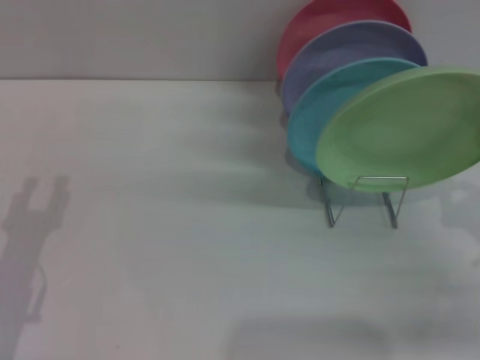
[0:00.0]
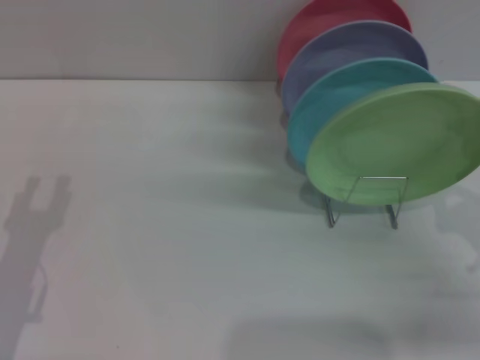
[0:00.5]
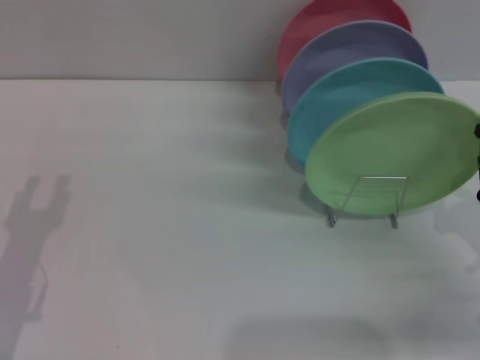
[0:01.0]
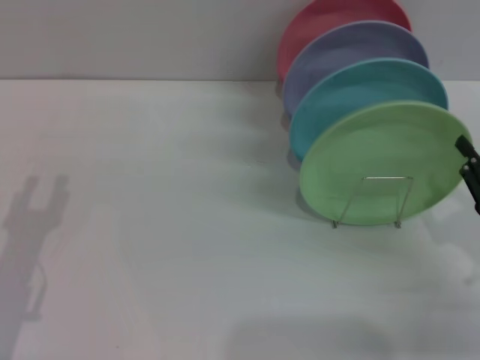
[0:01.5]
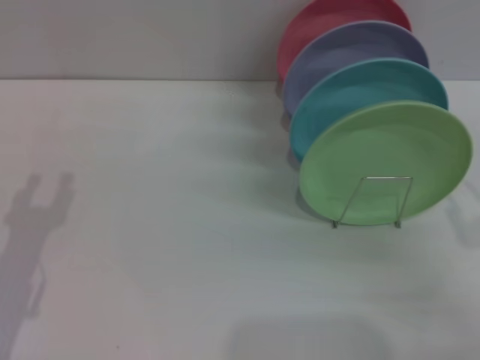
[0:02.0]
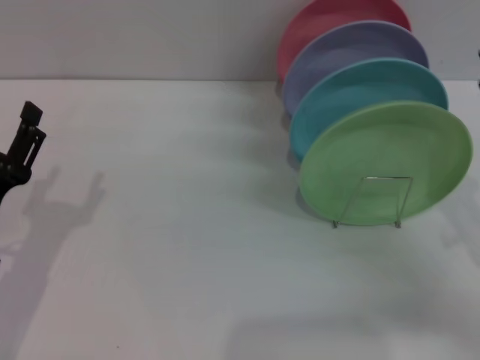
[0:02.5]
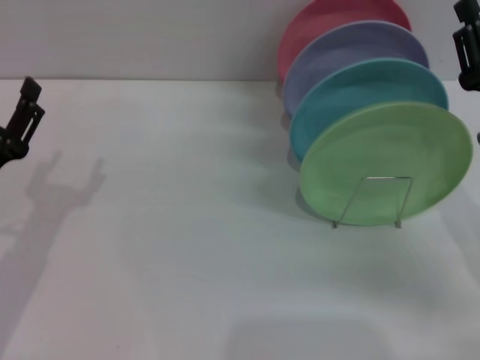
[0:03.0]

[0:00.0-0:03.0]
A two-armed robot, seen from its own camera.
Task of the whole recording: Grip the plate with one hand, pass it to the other, then set it on the shelf.
0:00.0 to 0:01.5: The grippers move only a little.
0:01.5 to 0:03.0: The right gripper heads forward and to the left, covering approximately 10 cm.

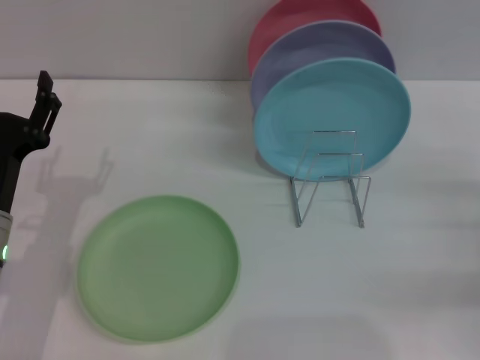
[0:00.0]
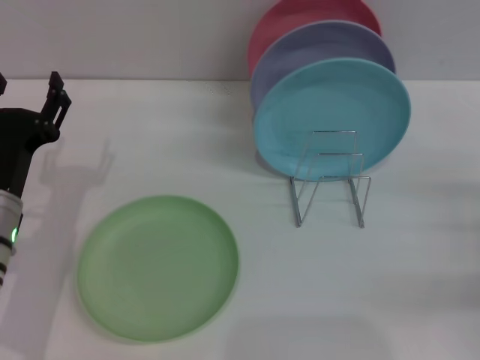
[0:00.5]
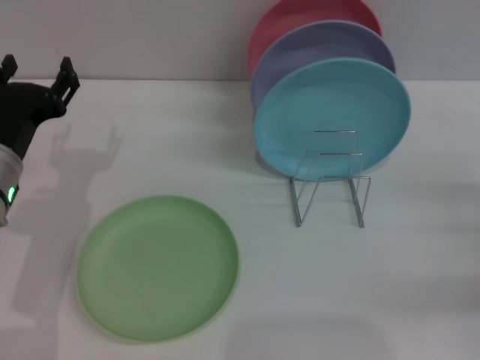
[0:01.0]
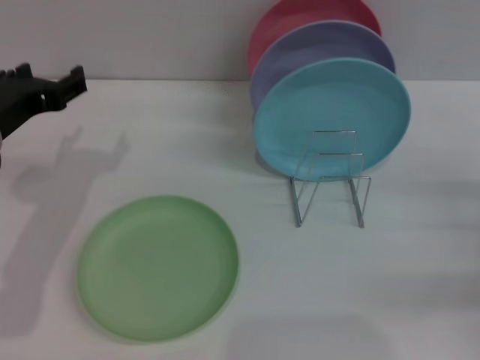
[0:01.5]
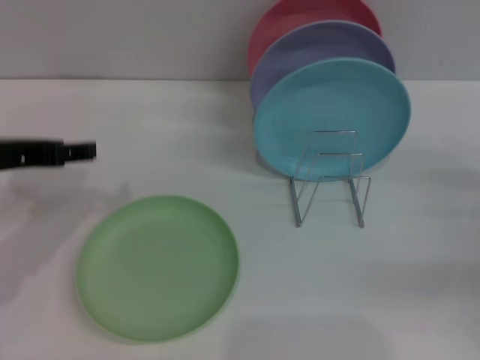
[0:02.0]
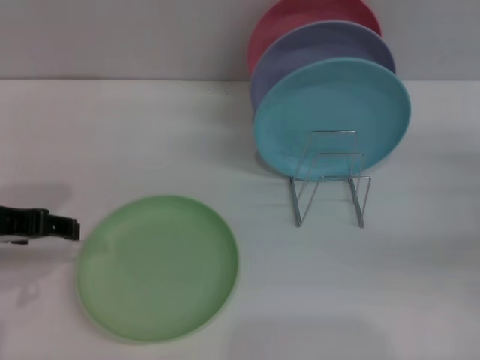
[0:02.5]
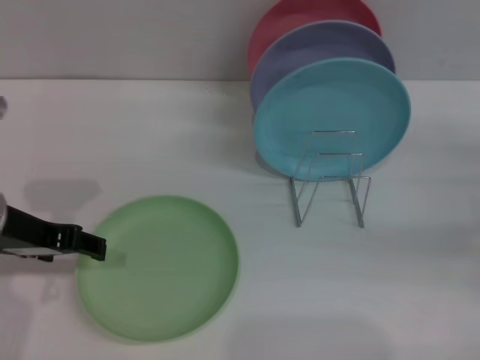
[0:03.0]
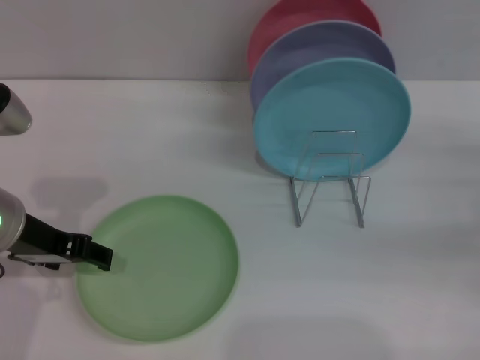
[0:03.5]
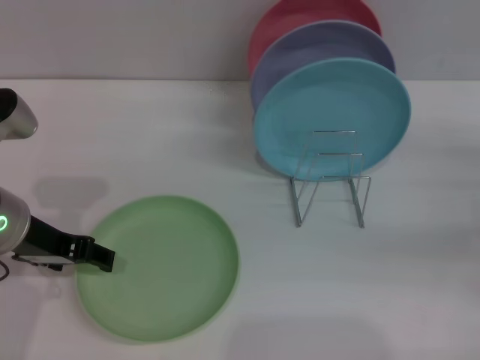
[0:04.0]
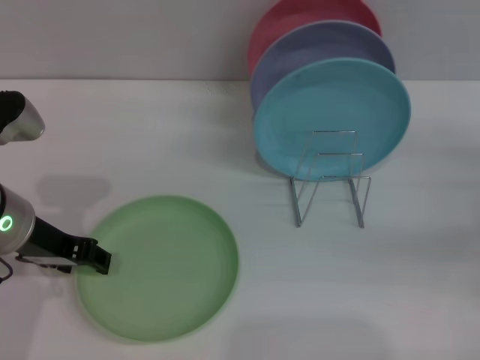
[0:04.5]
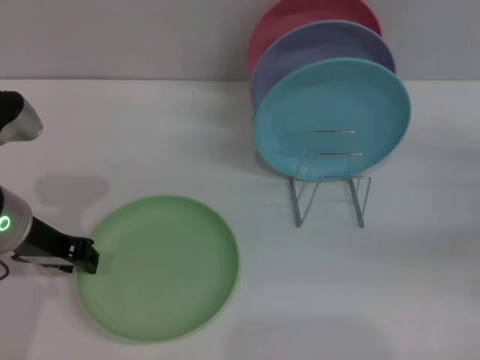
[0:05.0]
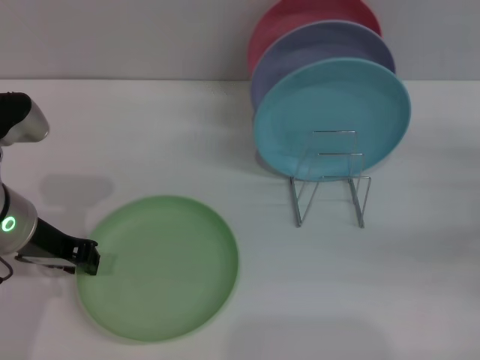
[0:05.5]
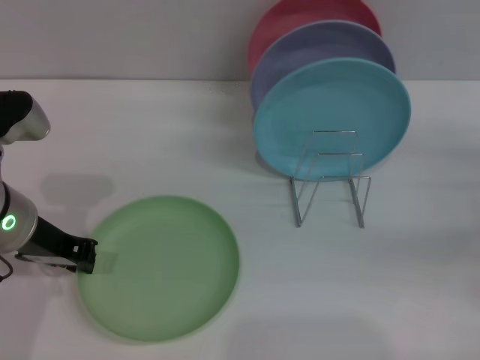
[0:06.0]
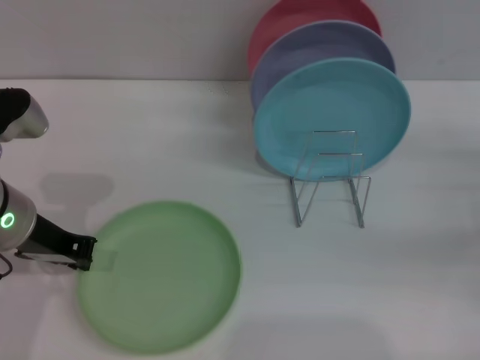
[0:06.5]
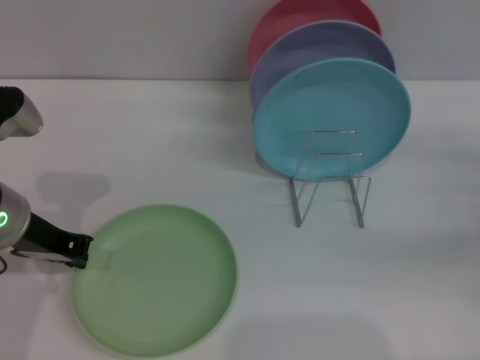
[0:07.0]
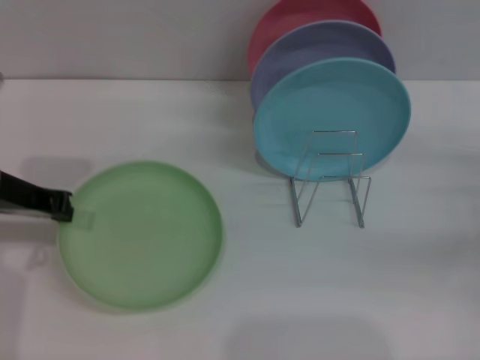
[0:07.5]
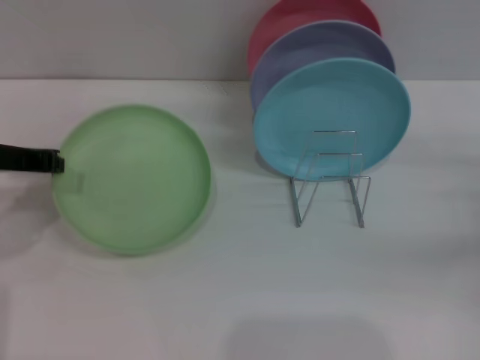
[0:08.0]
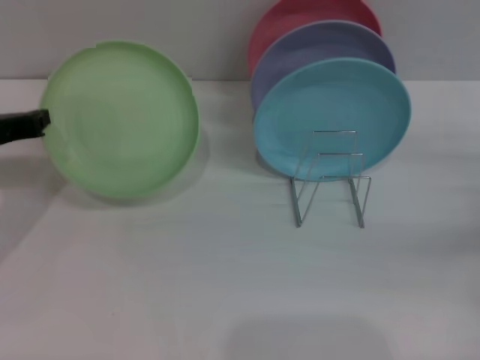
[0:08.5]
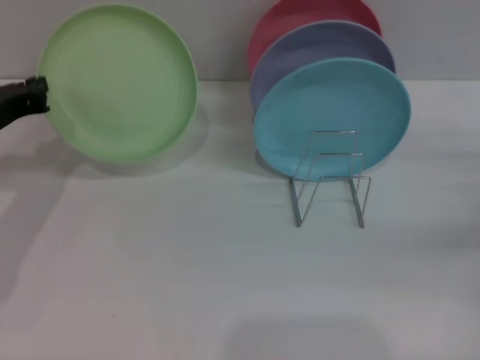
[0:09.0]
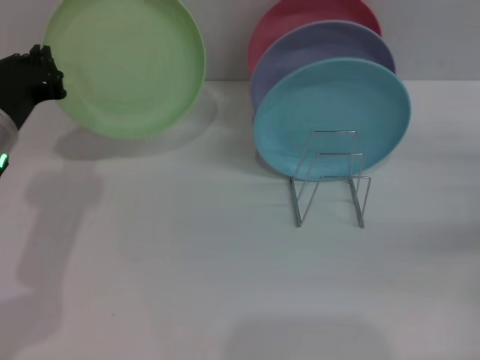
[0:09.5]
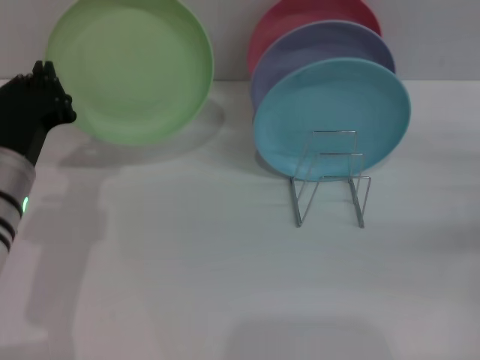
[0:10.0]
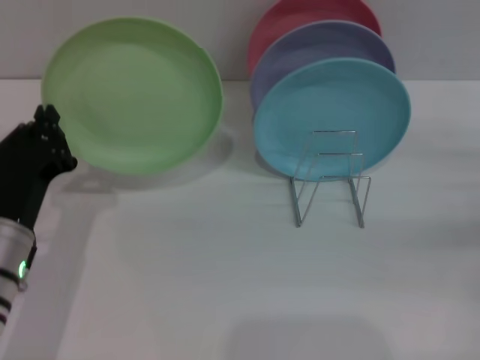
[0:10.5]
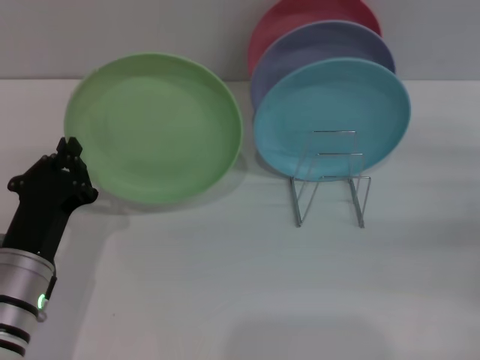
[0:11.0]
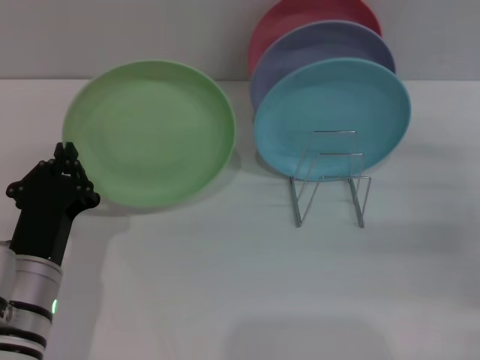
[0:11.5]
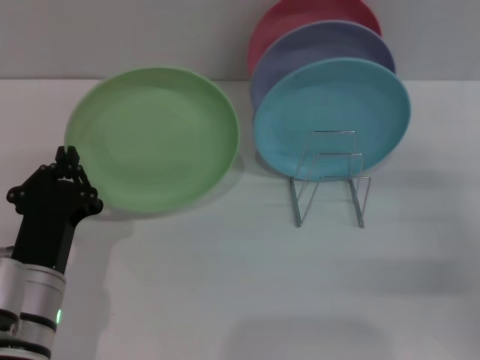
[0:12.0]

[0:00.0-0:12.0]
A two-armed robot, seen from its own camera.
Task of the whole recording: Grip the plate with one hand, pass it to the other, then set it on the shelf.
Step, 0:00.0 to 0:08.5: Pick up the plate with the left gripper.
0:00.0 to 0:02.0: The left gripper is displaced upward by approximately 15 cm.
0:02.0 to 0:04.0: The left gripper shifts by some 5 cm.
0:04.0 to 0:06.0: The left gripper closes.
0:06.0 to 0:08.0: The left gripper is displaced to the left by roughly 5 cm.
0:08.0 to 0:10.0: The left gripper heads downward, to the right and backward, covering approximately 10 cm.
0:10.0 to 0:12.0: The right gripper ends up some 5 cm from where it was, while the left gripper goes approximately 10 cm backward and downward.

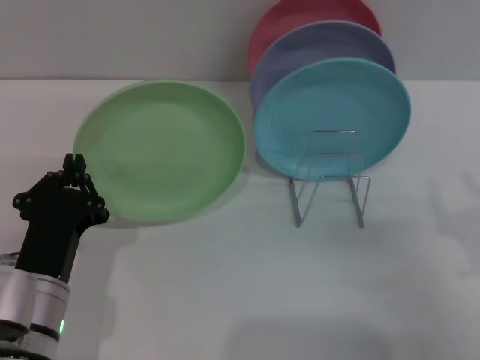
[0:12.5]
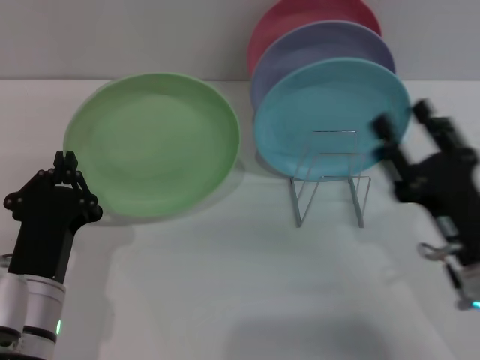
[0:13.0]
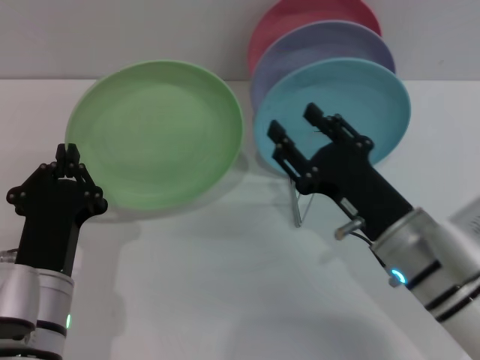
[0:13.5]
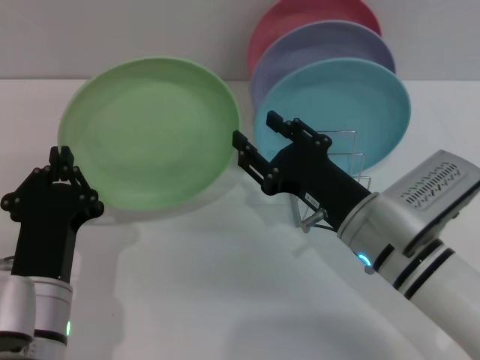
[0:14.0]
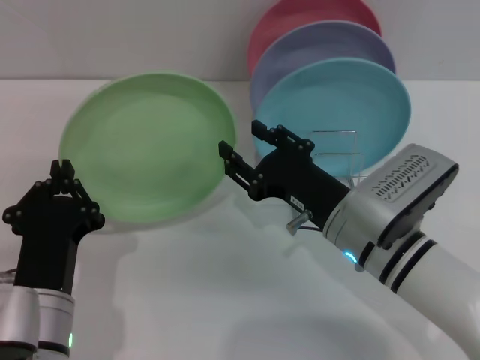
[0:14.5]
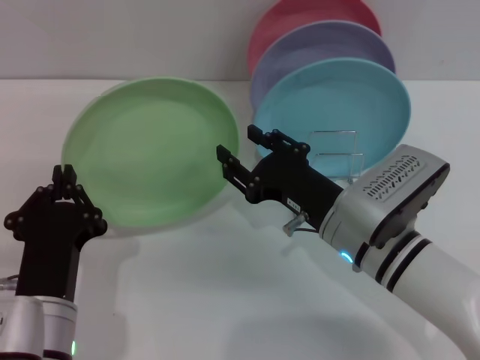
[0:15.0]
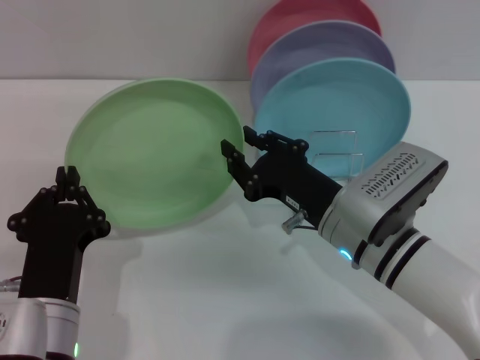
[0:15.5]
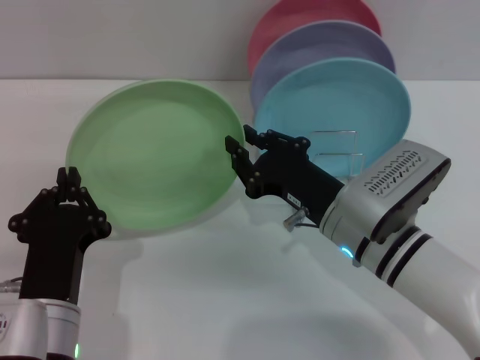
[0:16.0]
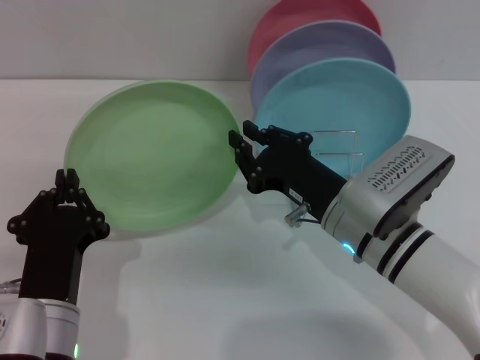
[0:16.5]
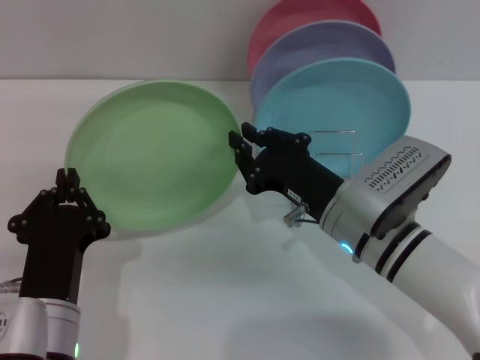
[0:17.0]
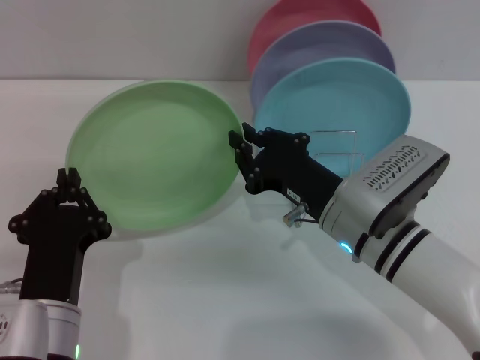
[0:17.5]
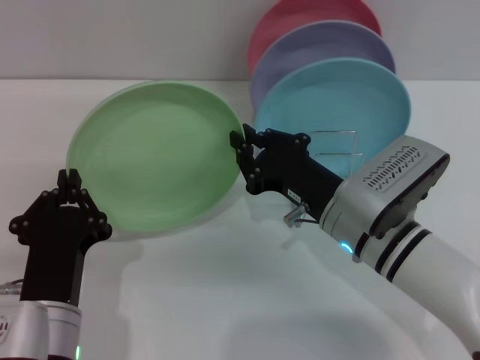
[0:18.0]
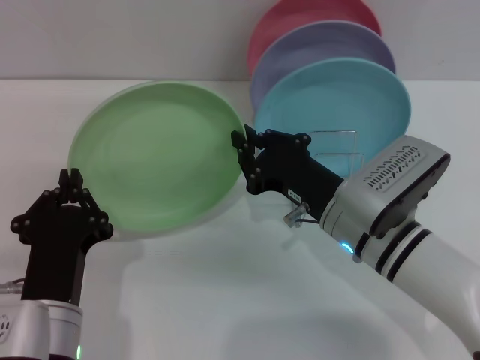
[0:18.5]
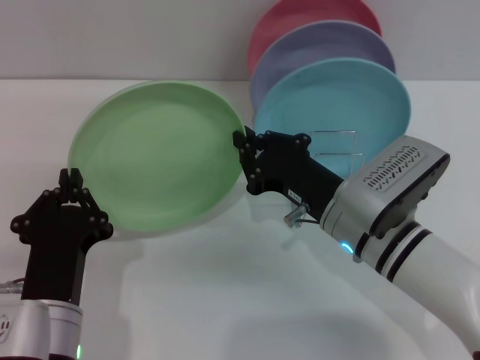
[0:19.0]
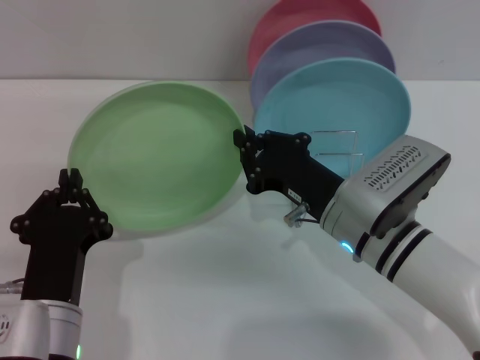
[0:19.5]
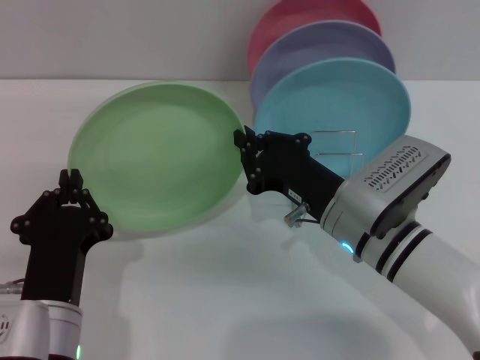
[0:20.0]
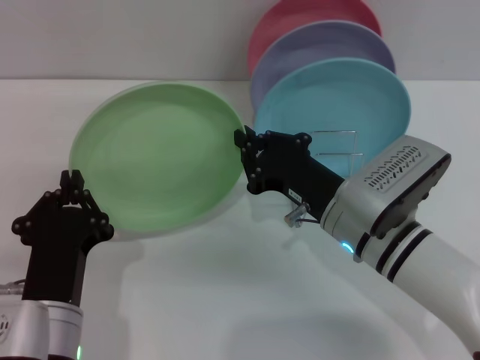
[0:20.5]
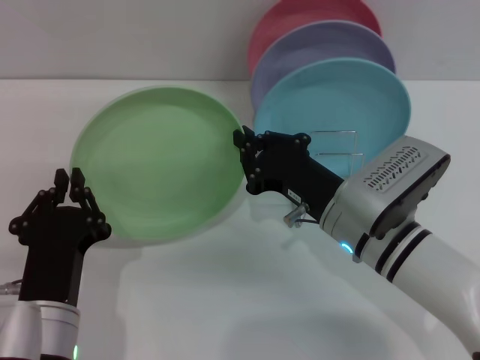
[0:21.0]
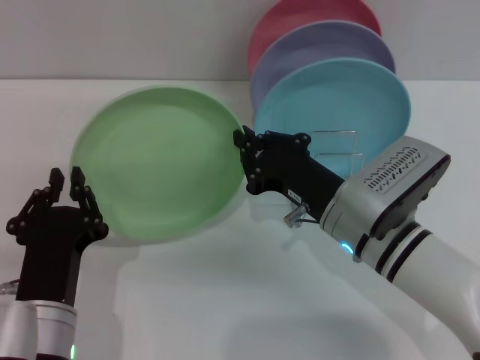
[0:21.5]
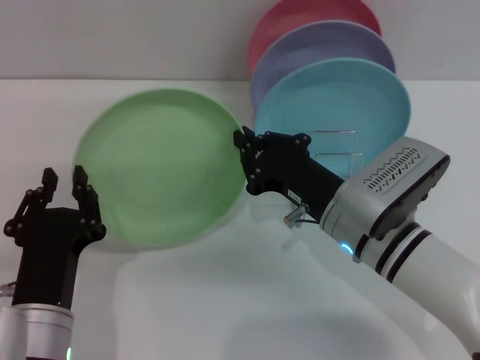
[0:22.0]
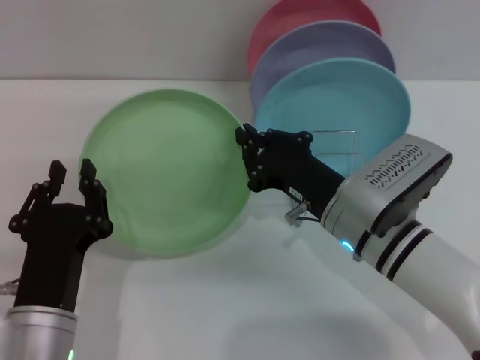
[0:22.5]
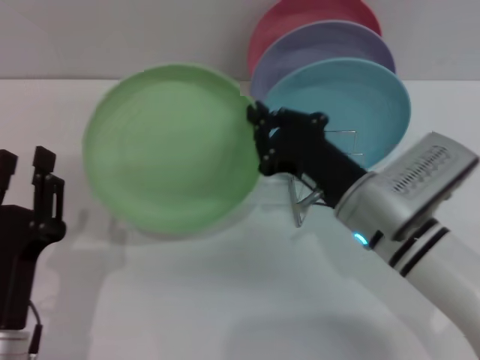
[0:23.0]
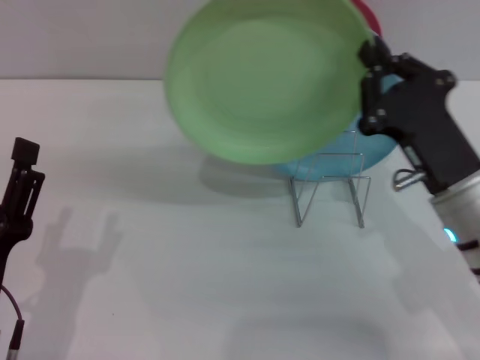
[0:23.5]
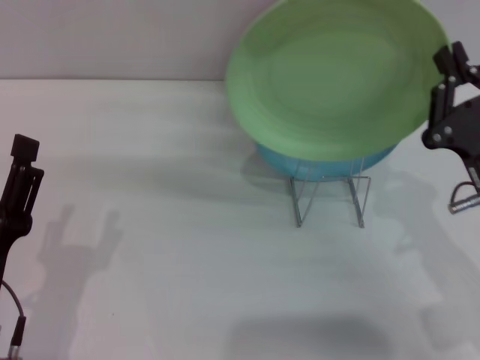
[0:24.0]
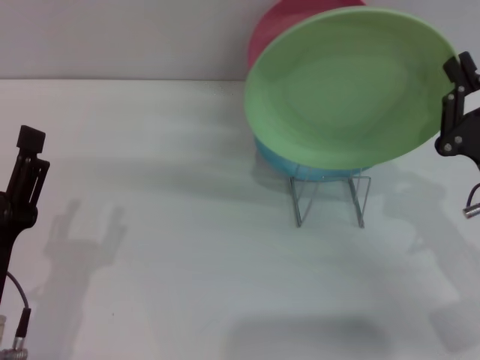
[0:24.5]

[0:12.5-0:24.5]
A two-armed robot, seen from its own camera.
Task of the whole recording: Grip the plate with one hand, pass it to the other, then set it on the shelf.
Step, 0:12.5 to 0:23.0: Pass the plate from the left gripper to the right gripper.
0:12.5 to 0:14.5: The right gripper shifts some 20 cm to the left and forward.
0:14.5 to 0:16.5: The right gripper closes its fingers.
0:16.5 to 0:20.5: The two grippers keep their place.
0:20.5 to 0:22.5: The grippers move only a little.
0:22.5 to 0:24.5: The left gripper shifts about 5 cm to the left, and opens; the right gripper travels to the right by roughly 15 cm.
